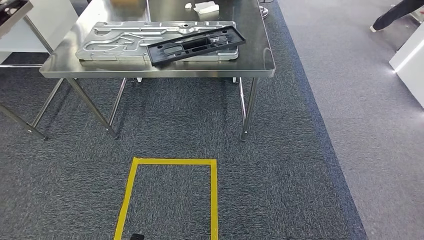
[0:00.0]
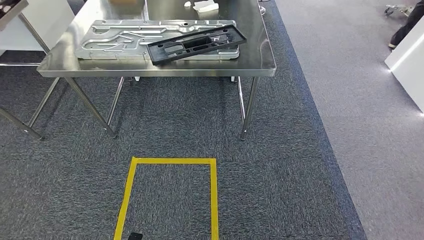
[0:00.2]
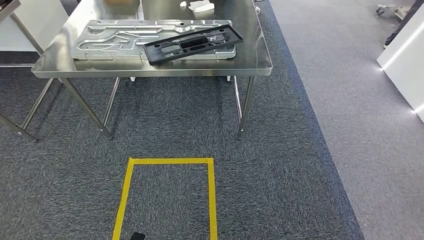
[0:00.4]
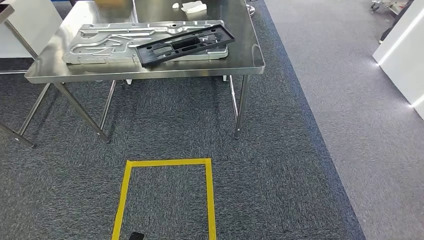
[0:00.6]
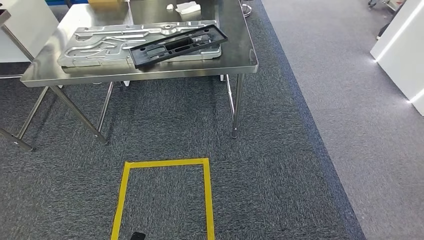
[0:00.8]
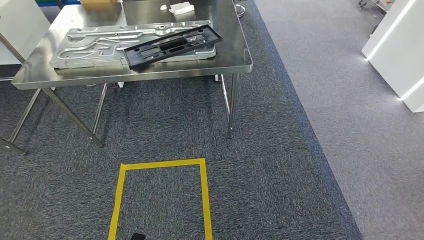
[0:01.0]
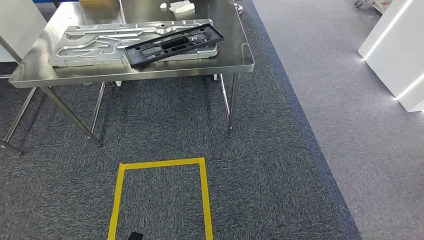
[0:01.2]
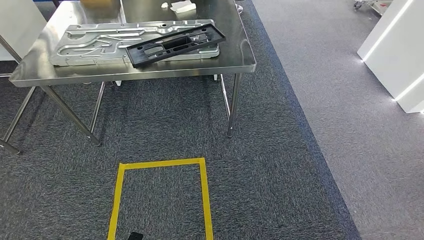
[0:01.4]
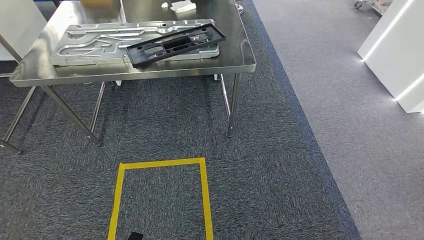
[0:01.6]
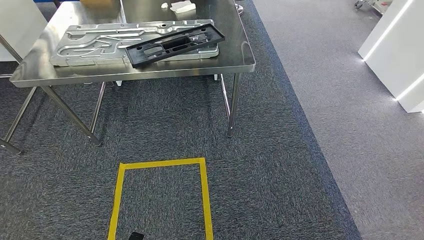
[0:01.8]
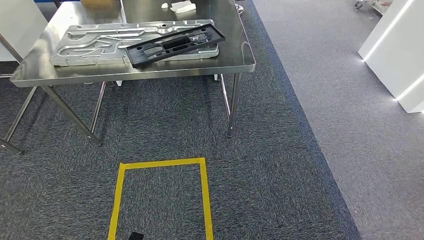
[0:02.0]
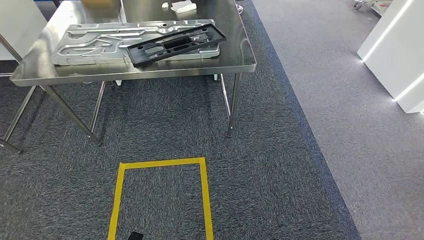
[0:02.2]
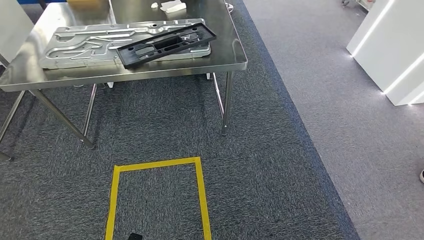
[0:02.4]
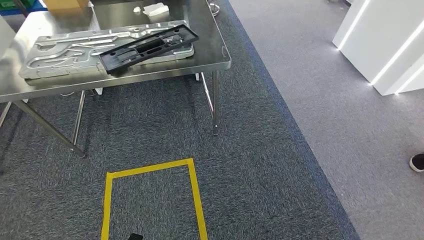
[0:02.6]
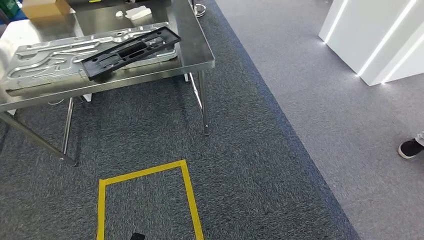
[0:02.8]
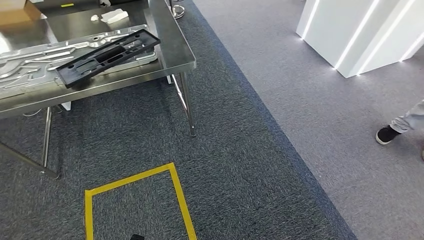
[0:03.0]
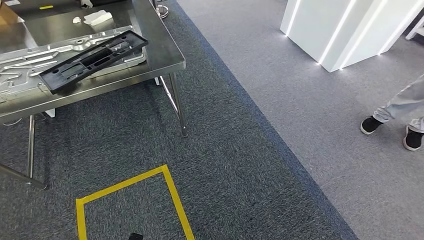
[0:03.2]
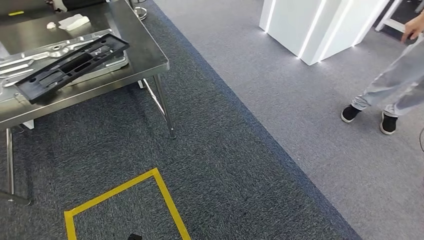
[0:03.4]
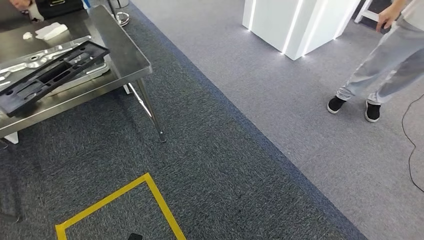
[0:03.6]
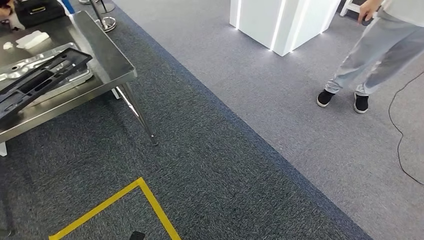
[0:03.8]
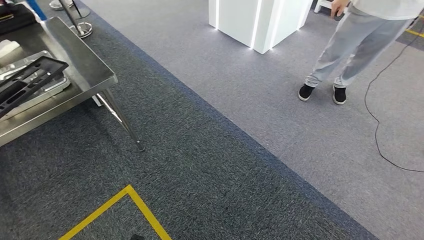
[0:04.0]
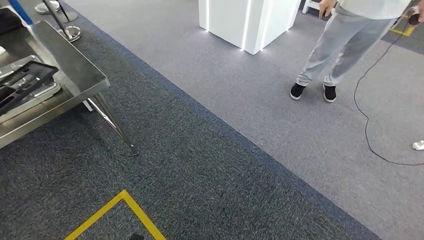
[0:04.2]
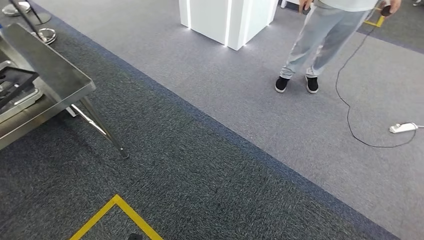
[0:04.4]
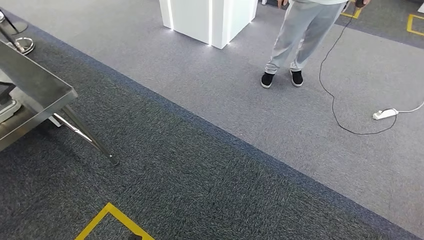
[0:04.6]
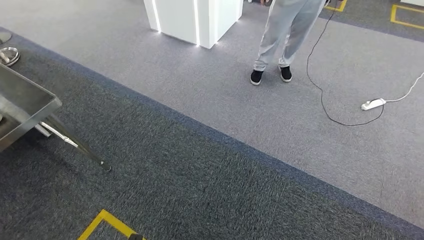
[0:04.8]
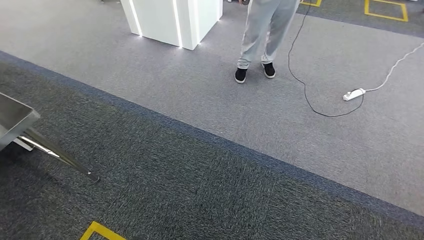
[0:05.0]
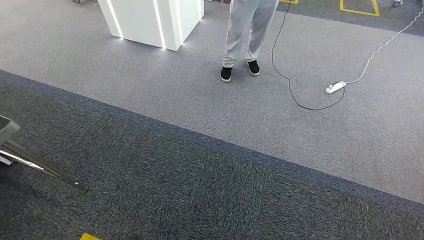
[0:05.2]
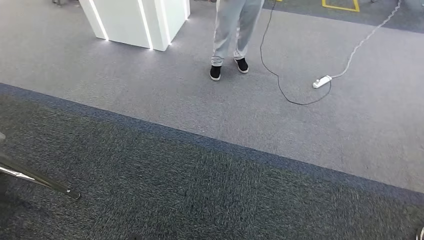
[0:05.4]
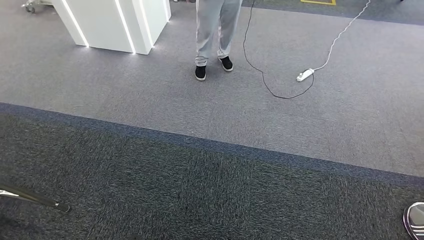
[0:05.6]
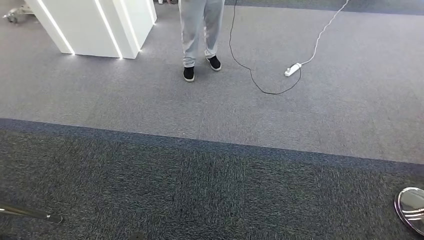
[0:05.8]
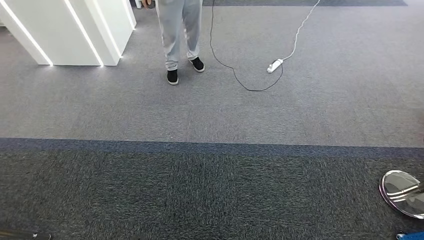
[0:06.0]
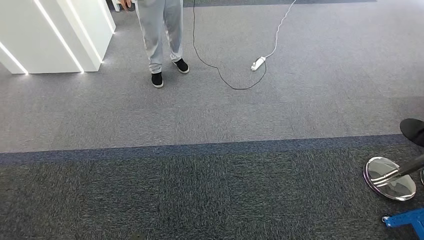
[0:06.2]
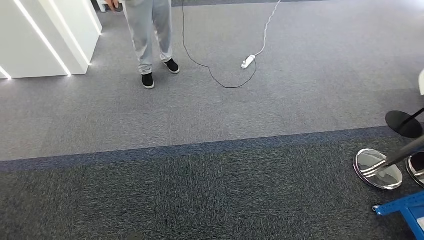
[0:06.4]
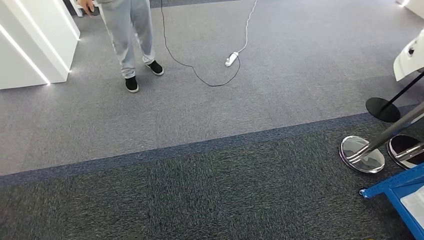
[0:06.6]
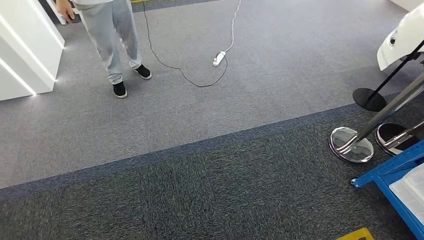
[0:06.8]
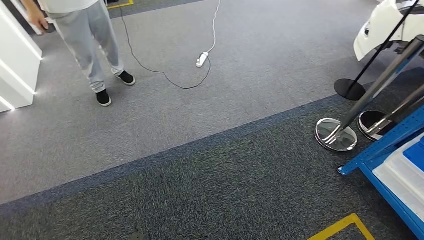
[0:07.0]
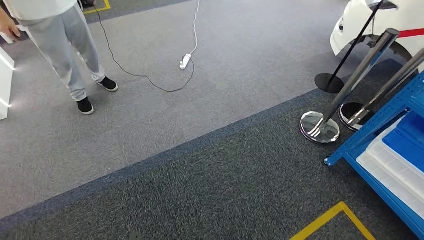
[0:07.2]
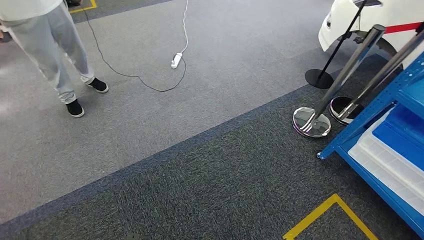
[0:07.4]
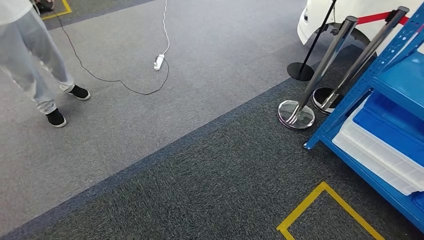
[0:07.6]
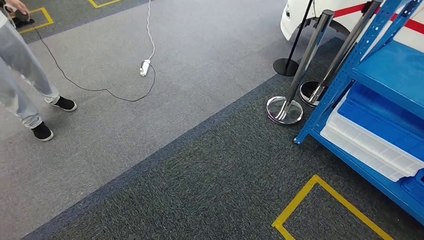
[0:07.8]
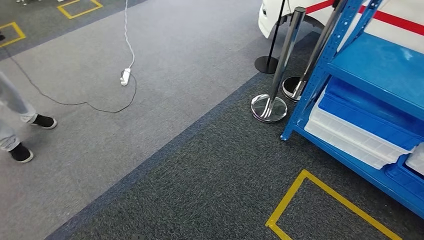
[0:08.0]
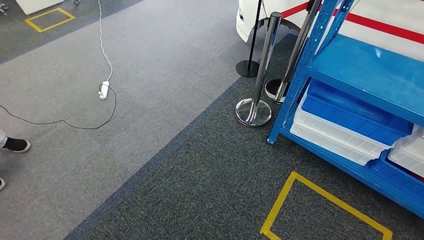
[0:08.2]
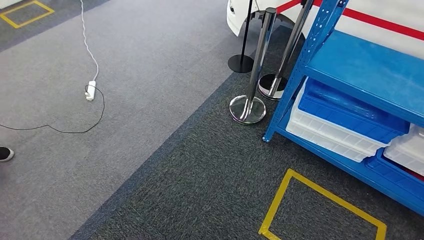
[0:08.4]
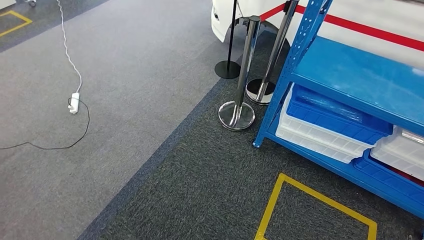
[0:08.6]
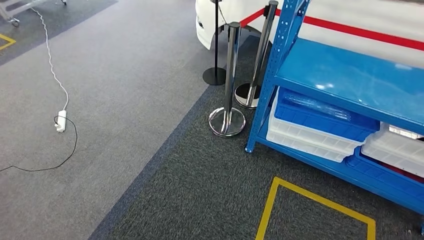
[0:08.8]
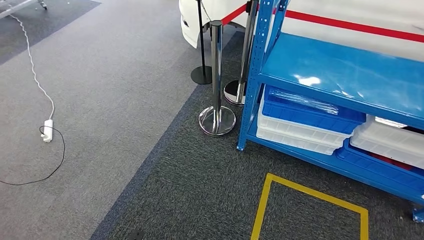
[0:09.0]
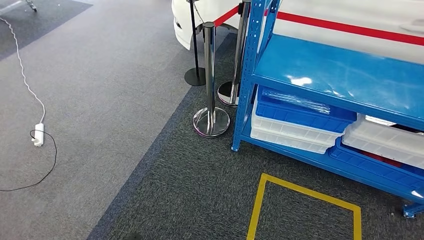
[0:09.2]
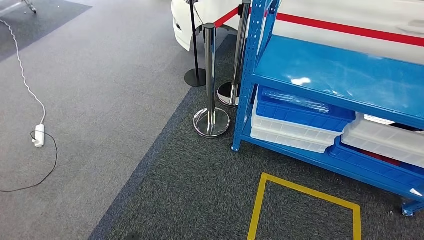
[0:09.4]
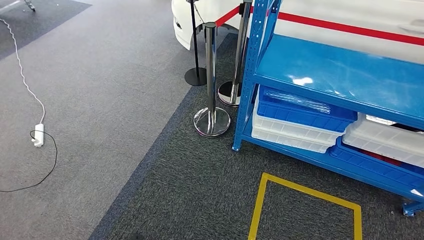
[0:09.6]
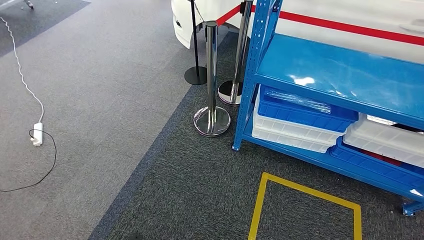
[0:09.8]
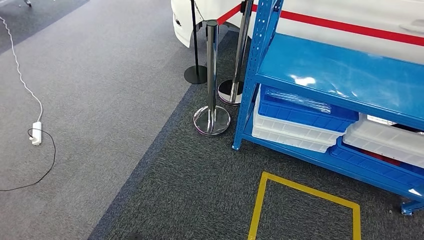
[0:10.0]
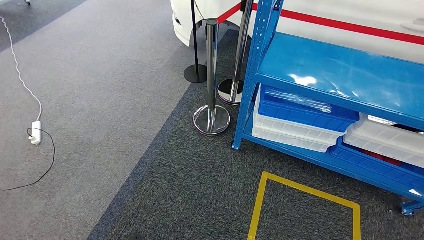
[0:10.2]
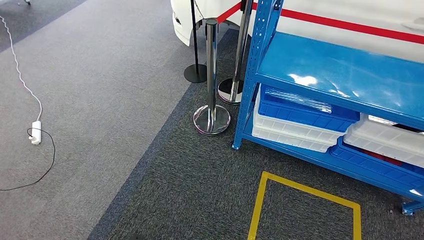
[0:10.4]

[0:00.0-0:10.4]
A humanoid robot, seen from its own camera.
0:09.0 to 0:10.4: The hands move only a little.

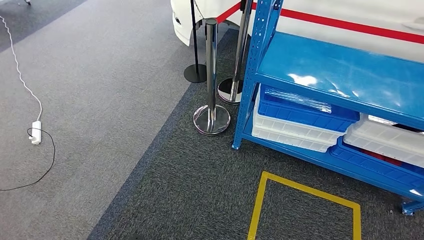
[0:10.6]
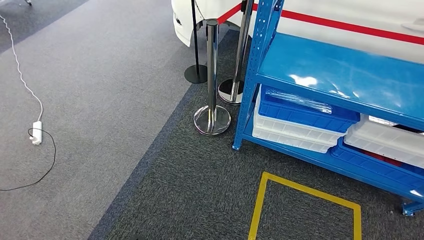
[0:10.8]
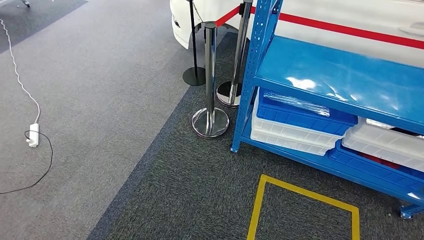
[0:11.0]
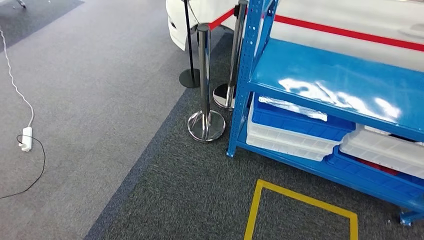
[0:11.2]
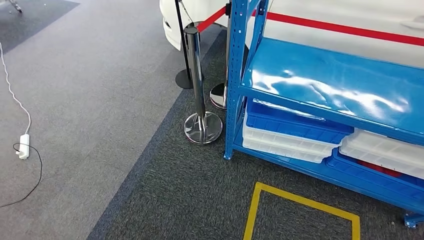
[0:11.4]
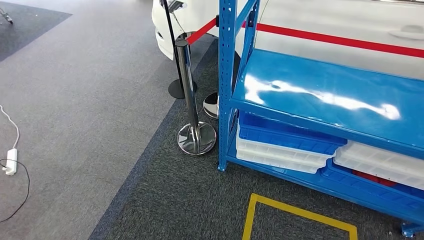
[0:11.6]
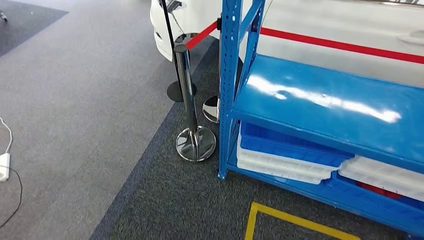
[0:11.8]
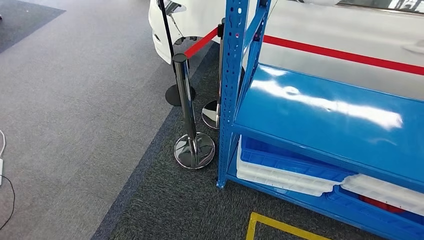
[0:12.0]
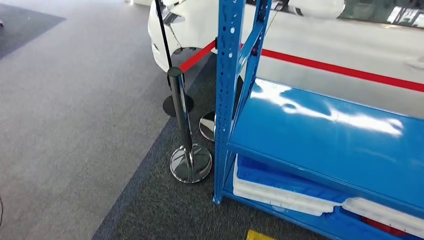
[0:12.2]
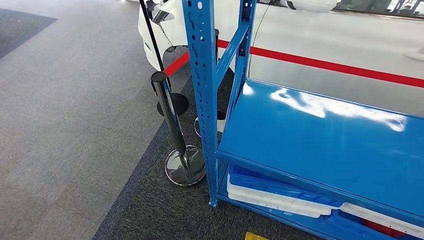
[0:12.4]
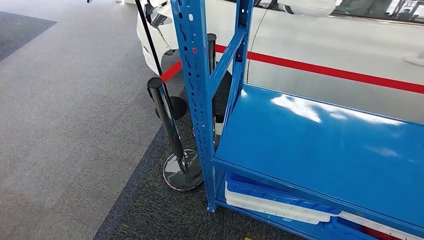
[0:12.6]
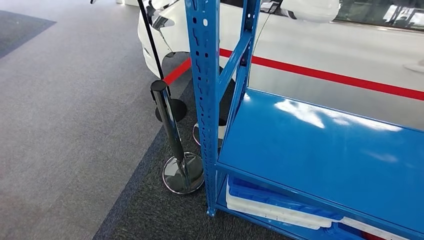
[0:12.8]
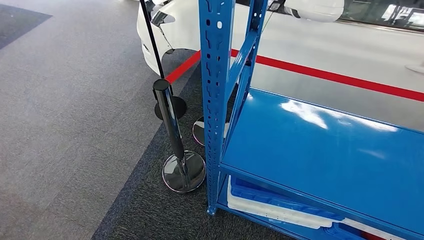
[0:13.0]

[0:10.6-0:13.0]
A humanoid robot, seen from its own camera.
Step, 0:10.6 to 0:12.8: Return to the initial position at the shelf.

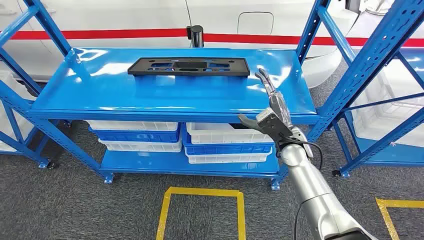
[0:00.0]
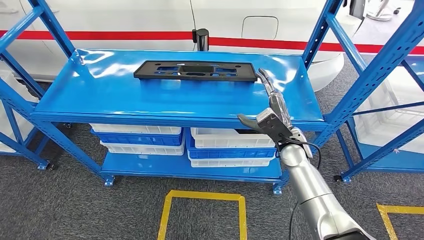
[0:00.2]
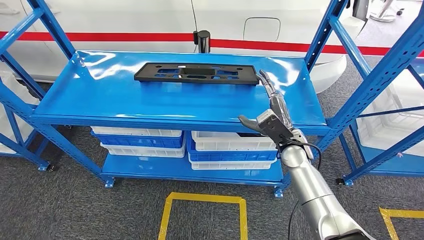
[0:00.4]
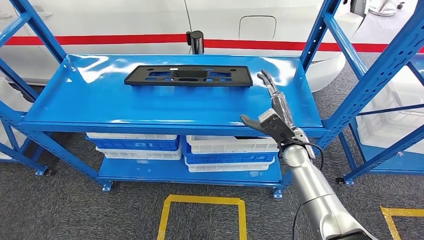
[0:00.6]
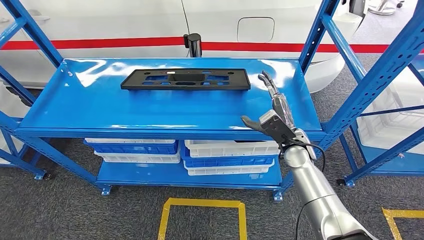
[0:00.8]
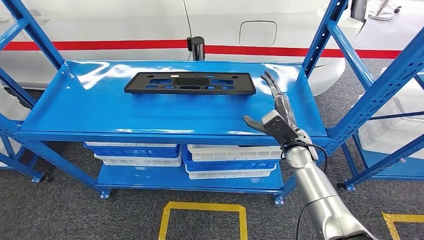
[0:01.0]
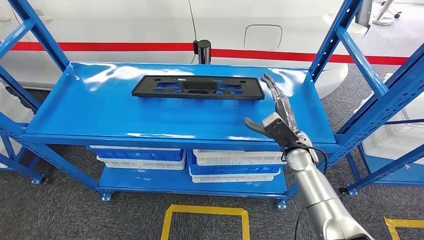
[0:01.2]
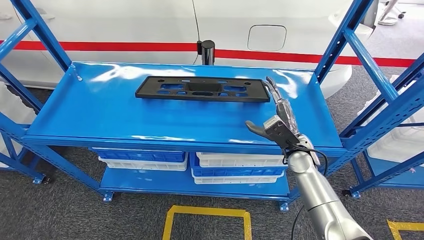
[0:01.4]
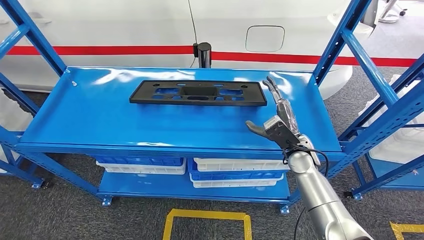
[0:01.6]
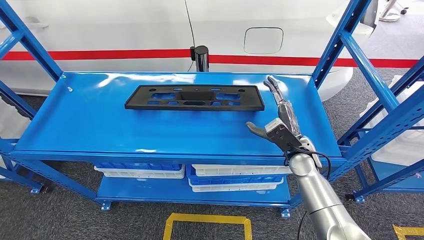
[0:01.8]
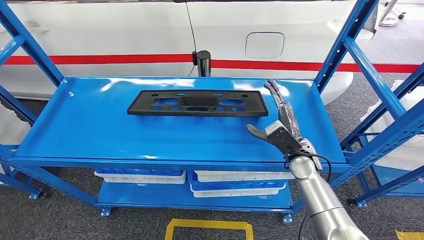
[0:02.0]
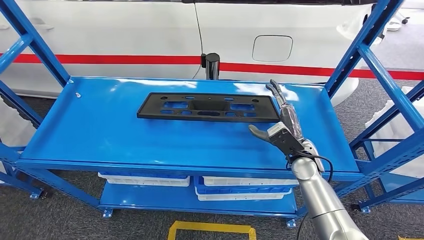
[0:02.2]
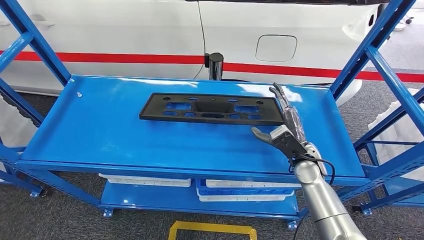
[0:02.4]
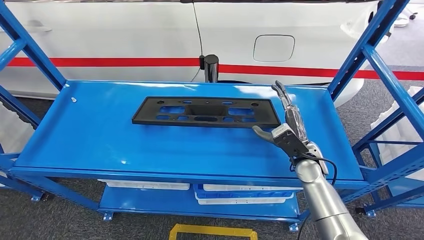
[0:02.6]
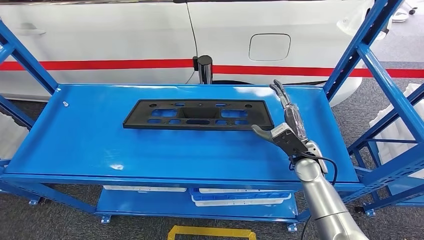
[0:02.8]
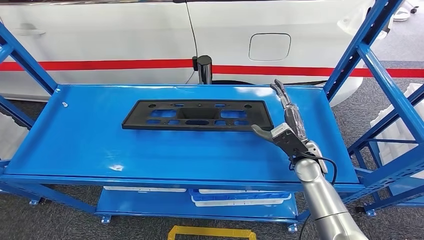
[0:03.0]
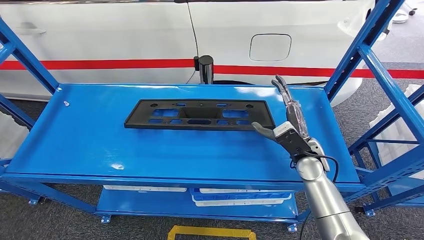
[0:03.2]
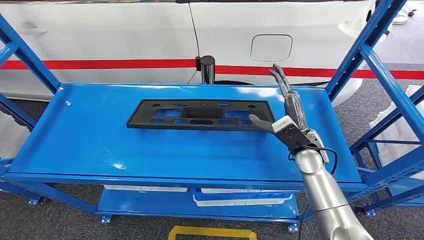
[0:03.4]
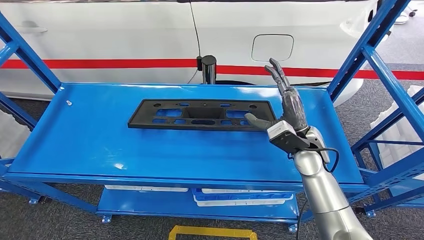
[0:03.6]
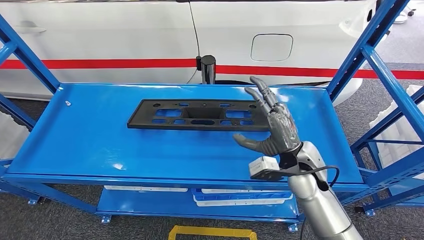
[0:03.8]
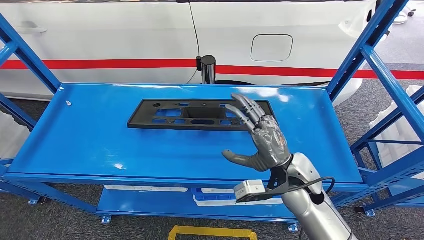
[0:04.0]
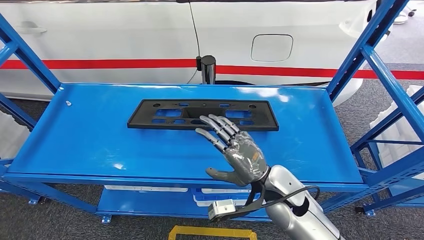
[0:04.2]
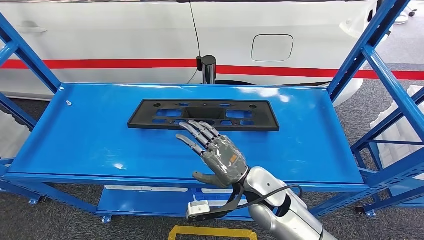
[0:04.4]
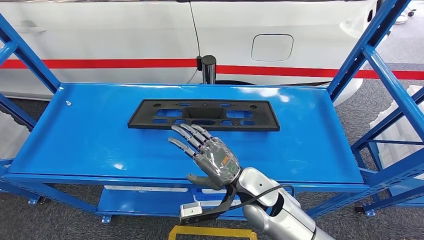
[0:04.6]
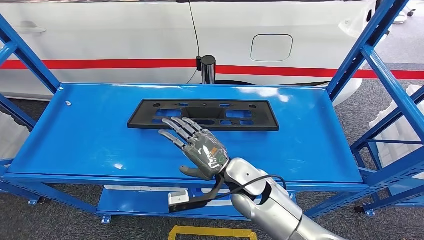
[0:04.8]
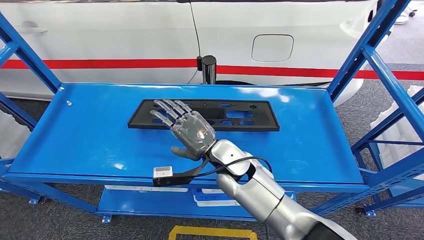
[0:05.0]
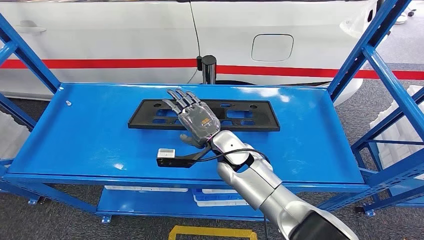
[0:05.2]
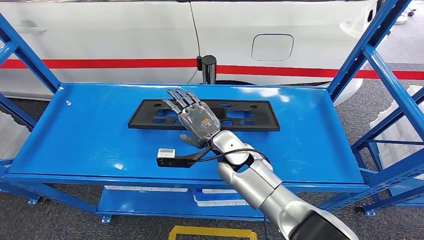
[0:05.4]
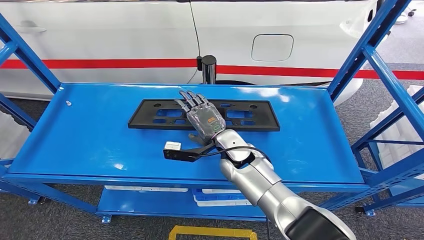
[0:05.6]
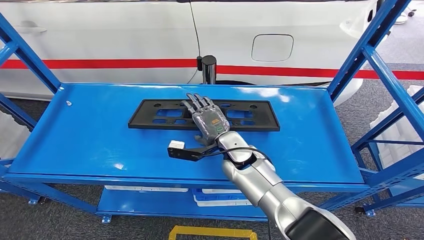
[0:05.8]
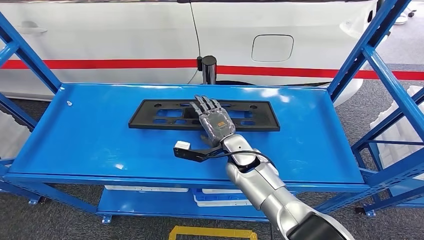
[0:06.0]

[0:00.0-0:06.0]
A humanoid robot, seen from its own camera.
0:04.4 to 0:06.0: The right hand heads forward, covering some 10 cm.
